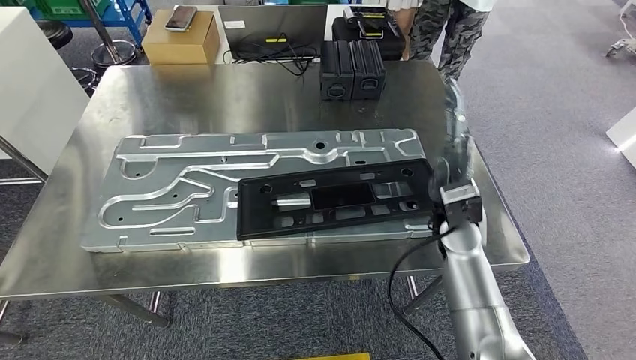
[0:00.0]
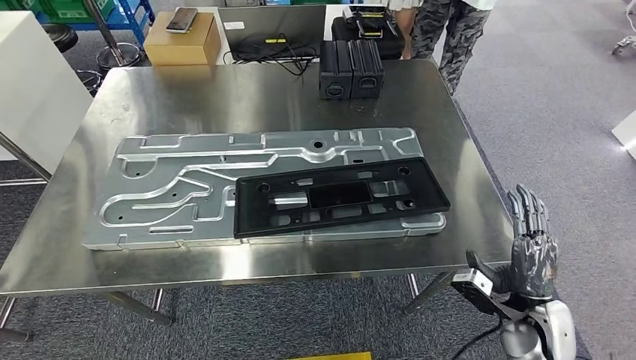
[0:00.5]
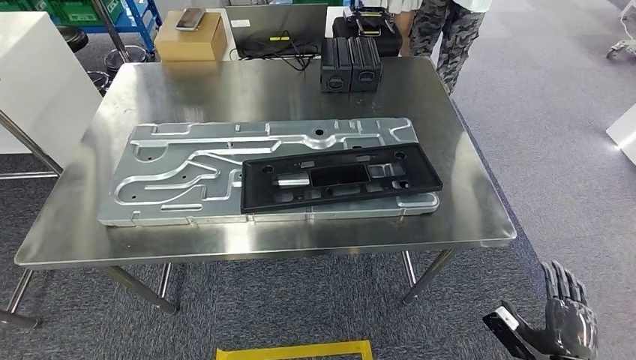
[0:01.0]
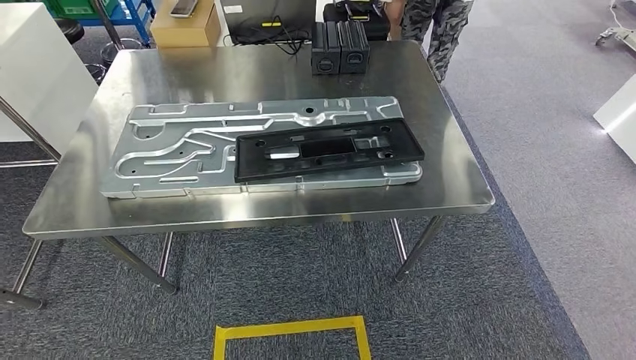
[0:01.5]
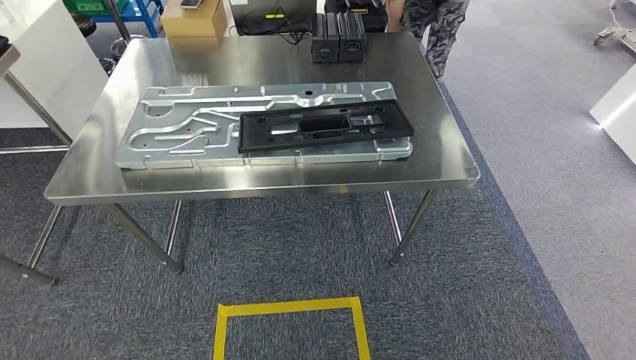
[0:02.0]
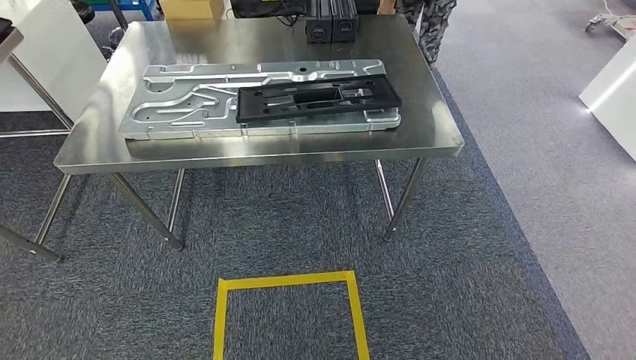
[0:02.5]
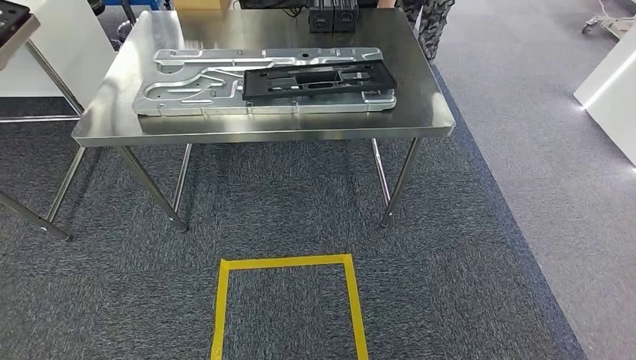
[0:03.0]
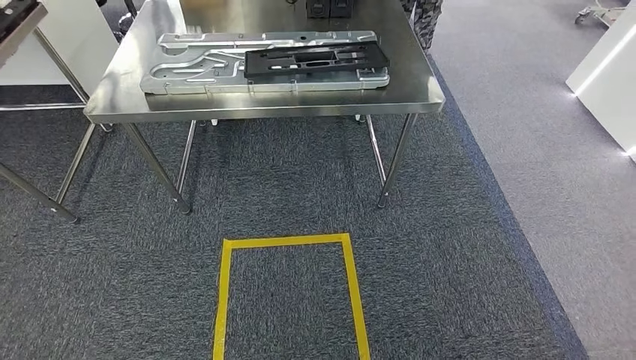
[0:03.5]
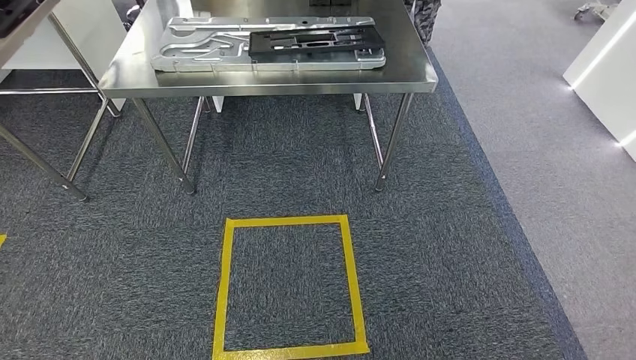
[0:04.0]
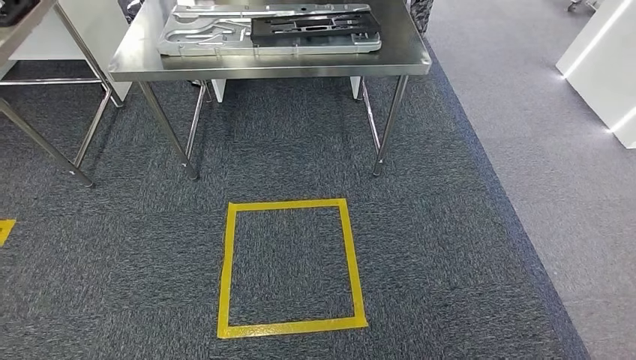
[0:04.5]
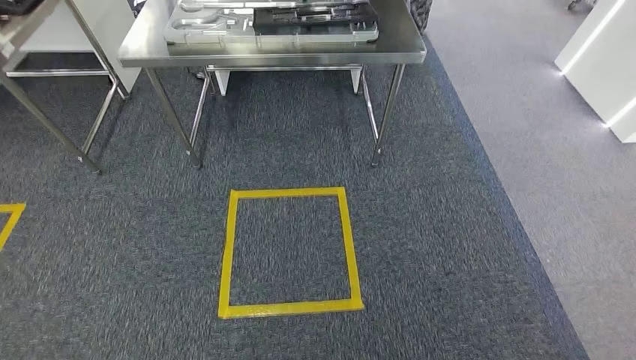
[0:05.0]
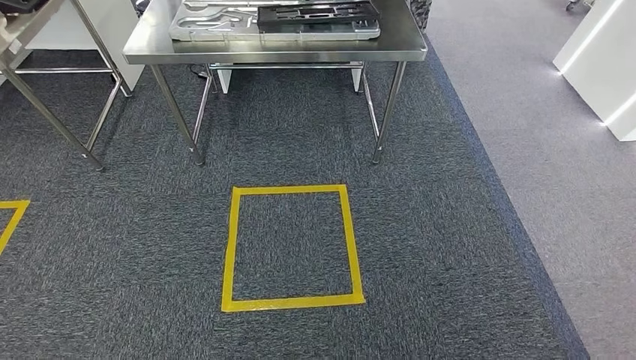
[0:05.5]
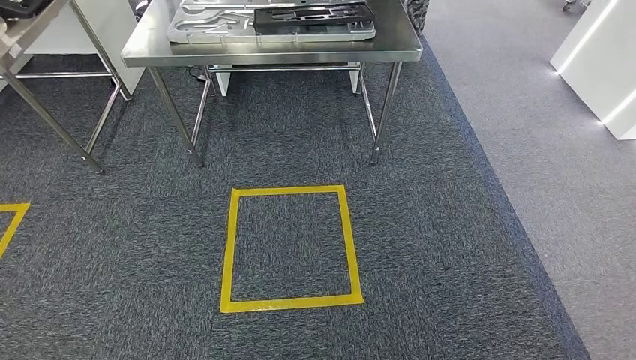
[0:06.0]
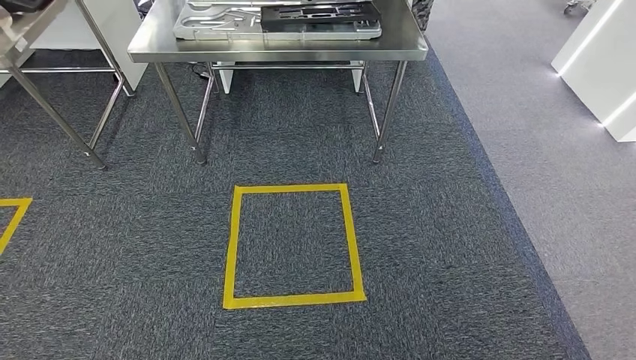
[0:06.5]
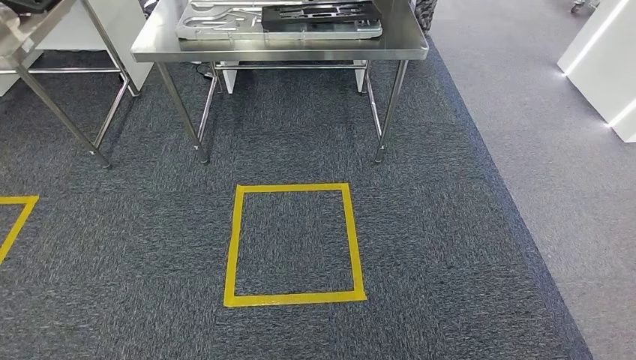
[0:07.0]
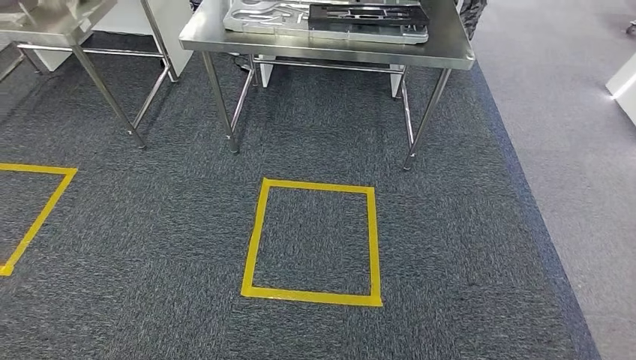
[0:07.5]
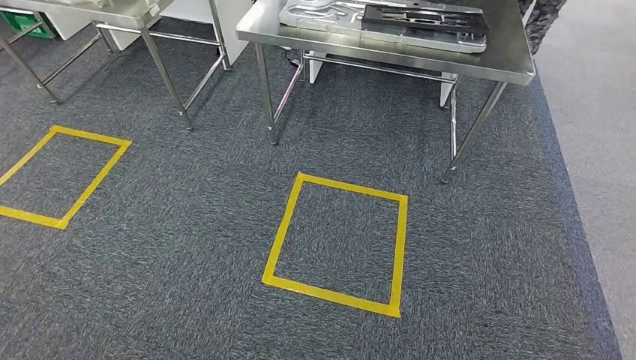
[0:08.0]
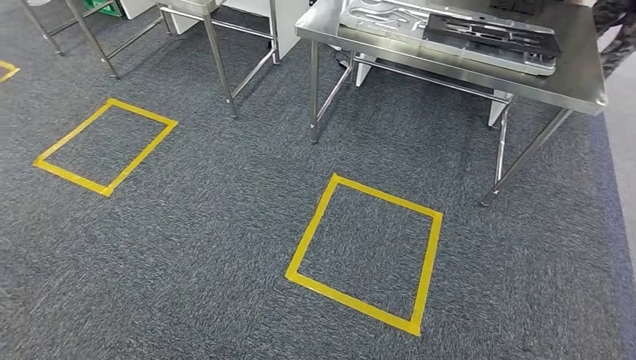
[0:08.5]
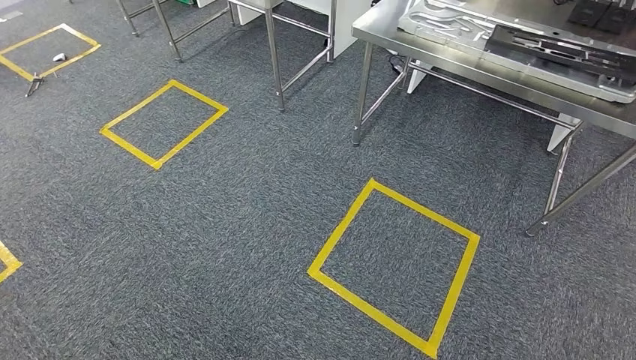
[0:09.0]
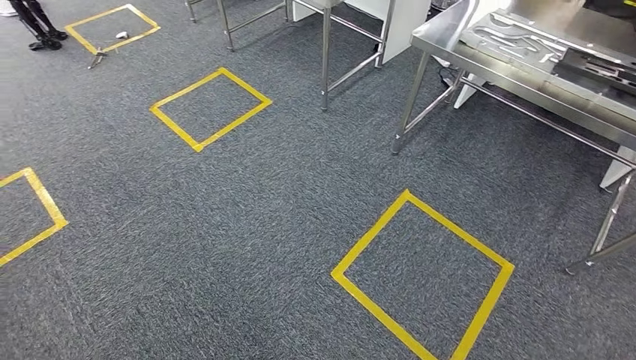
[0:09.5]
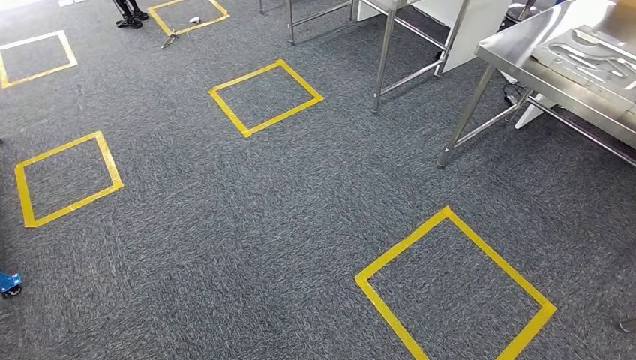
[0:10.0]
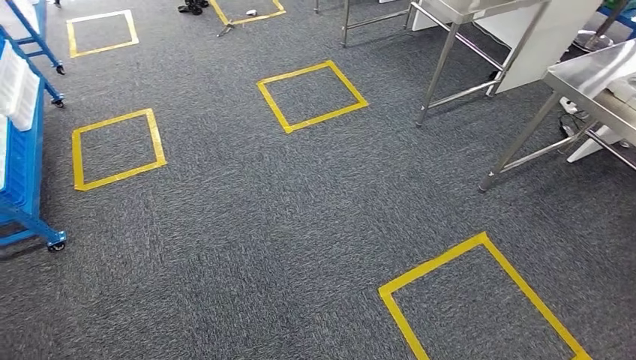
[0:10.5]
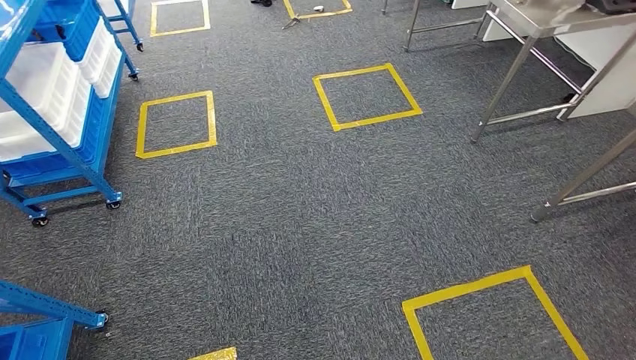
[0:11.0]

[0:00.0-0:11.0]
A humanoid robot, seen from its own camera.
Step, 0:00.0 to 0:01.5: Insert the large material into the corresponding slot on the workbench.

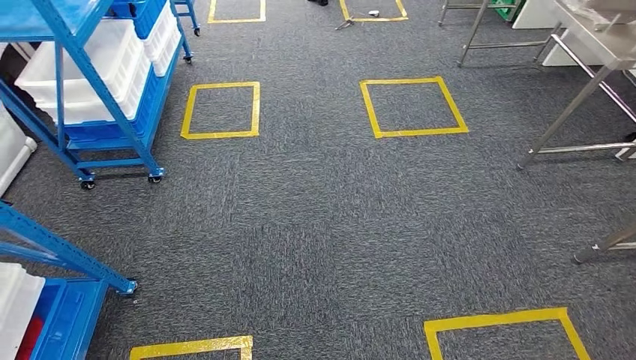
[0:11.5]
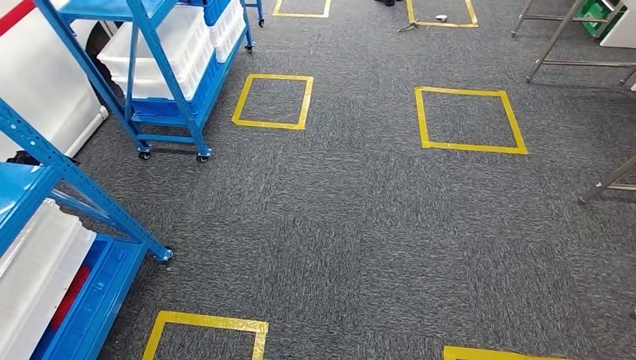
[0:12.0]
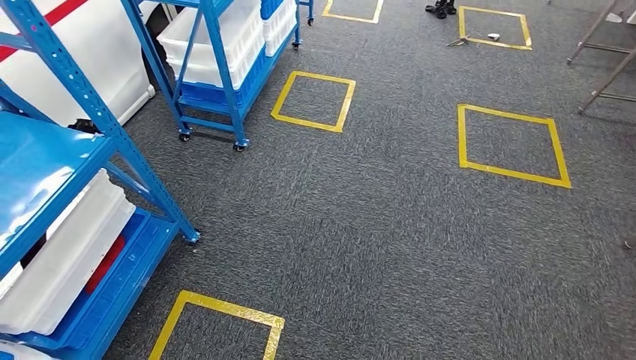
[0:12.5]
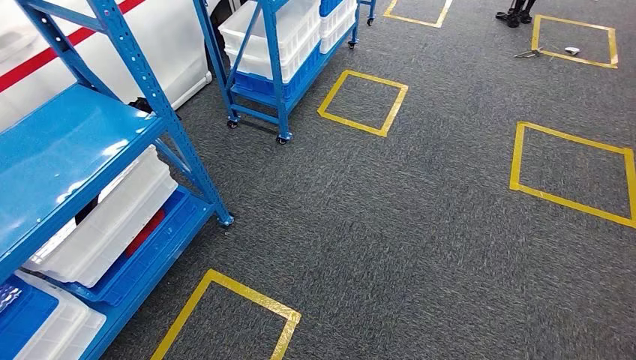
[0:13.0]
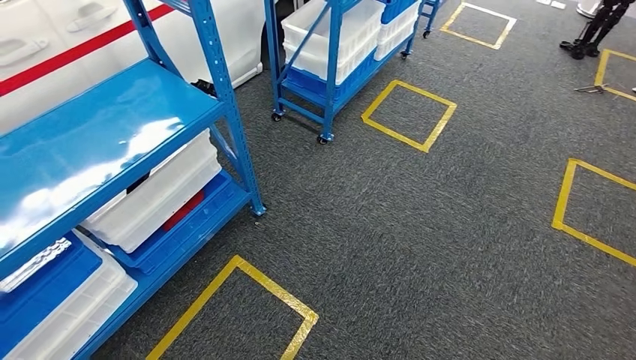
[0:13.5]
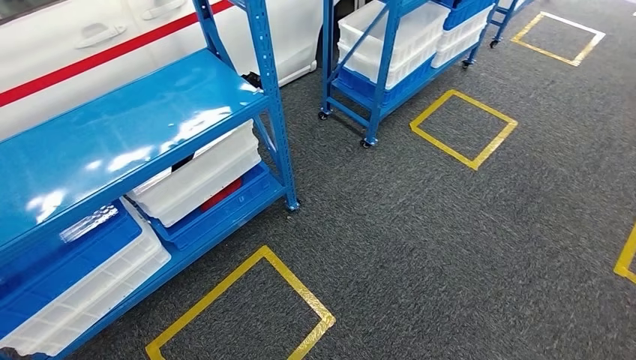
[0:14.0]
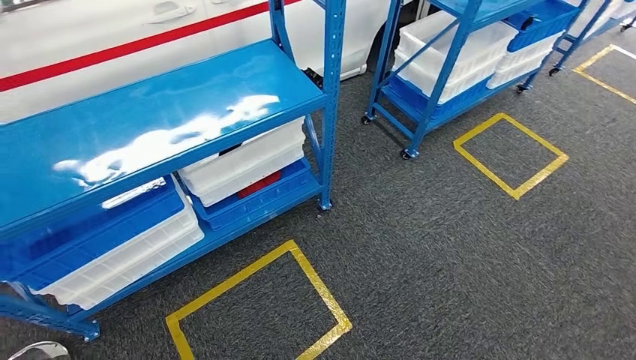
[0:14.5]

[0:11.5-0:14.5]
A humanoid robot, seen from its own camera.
Step, 0:11.5 to 0:14.5: Move to the initial position of the shelf.
